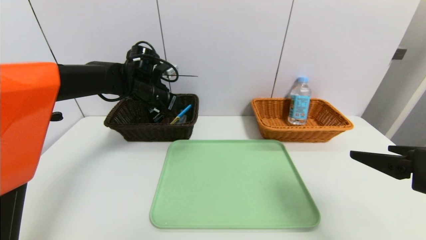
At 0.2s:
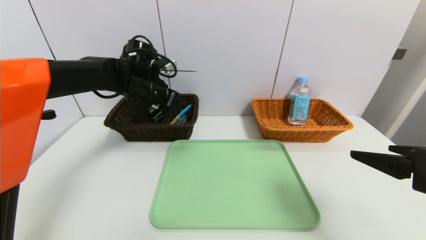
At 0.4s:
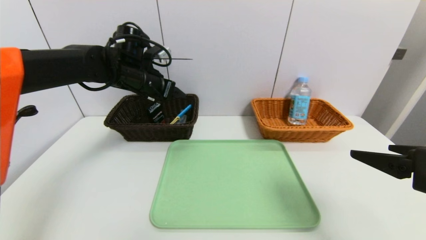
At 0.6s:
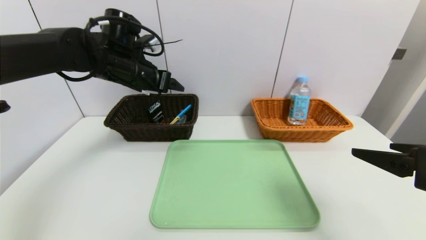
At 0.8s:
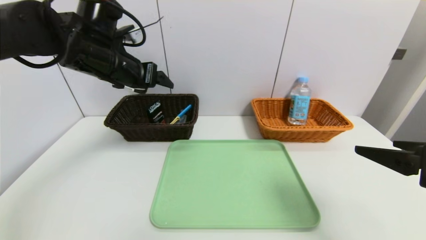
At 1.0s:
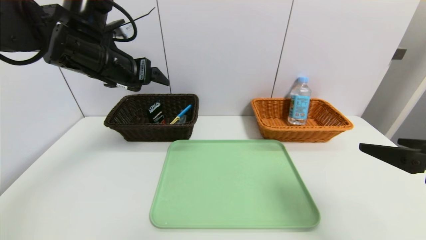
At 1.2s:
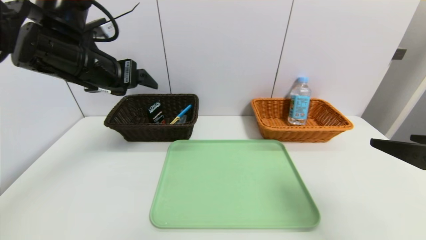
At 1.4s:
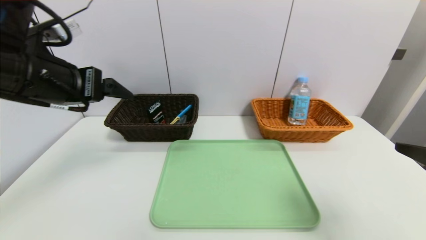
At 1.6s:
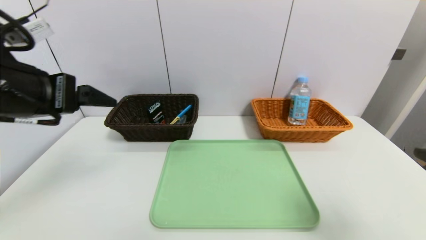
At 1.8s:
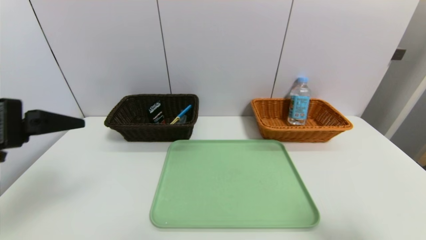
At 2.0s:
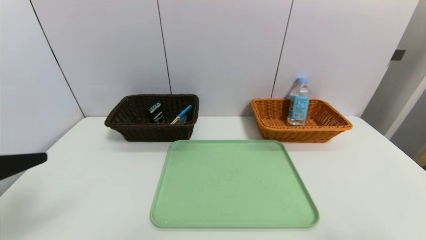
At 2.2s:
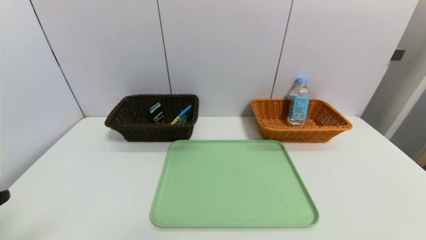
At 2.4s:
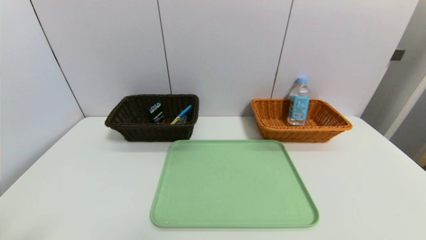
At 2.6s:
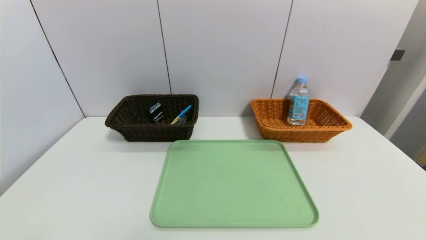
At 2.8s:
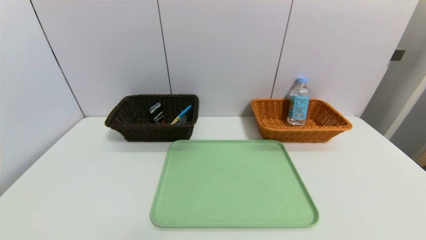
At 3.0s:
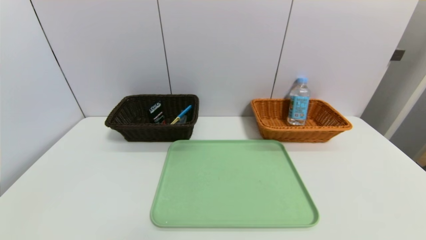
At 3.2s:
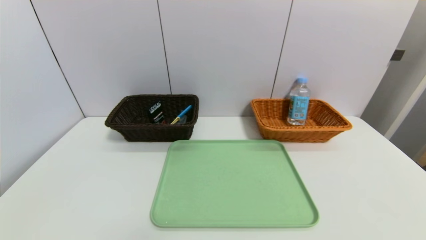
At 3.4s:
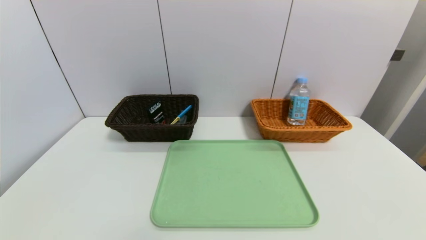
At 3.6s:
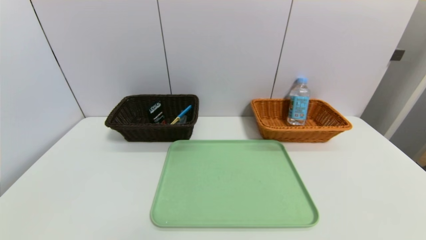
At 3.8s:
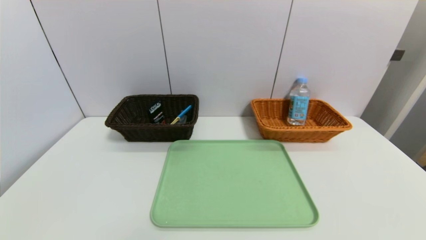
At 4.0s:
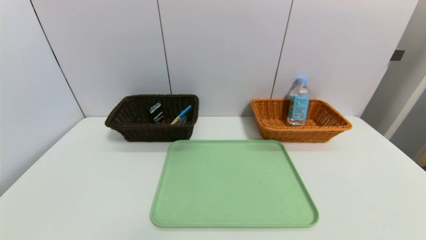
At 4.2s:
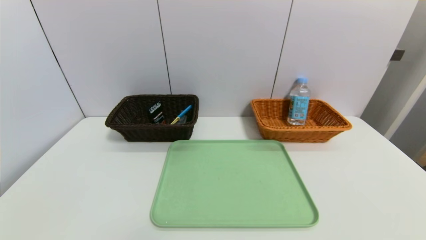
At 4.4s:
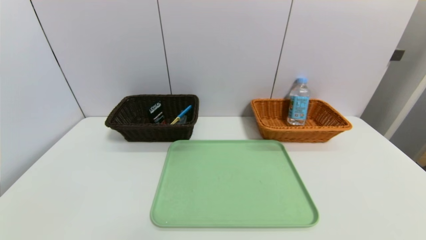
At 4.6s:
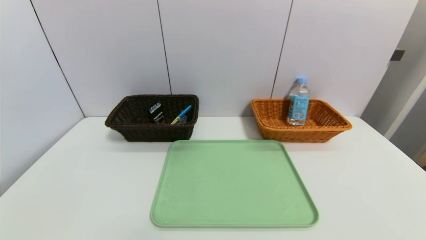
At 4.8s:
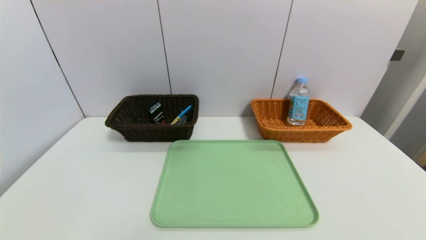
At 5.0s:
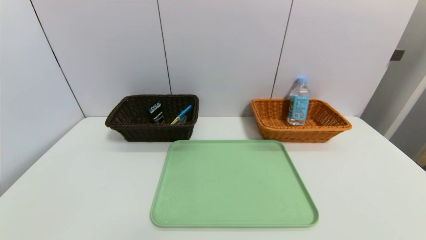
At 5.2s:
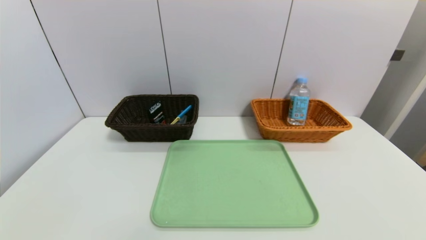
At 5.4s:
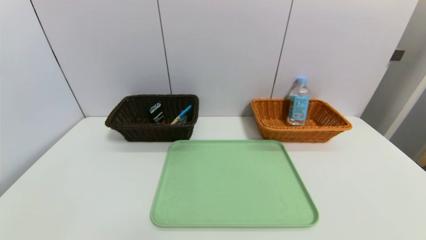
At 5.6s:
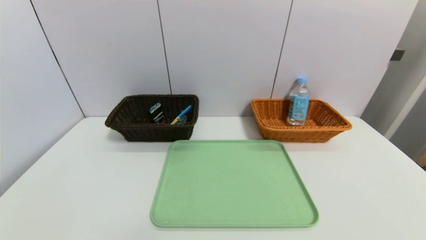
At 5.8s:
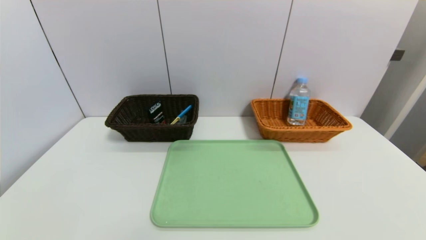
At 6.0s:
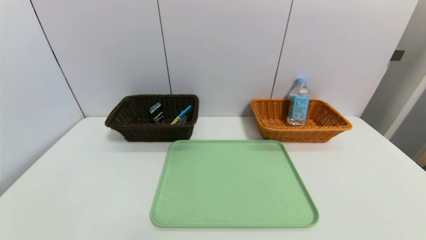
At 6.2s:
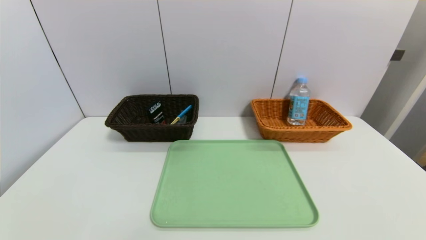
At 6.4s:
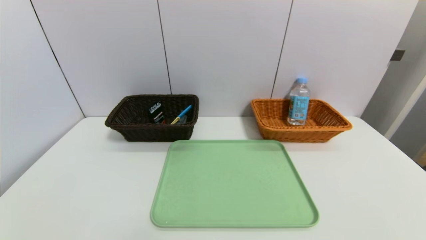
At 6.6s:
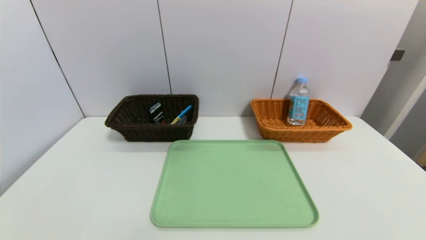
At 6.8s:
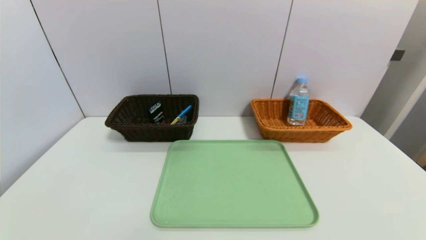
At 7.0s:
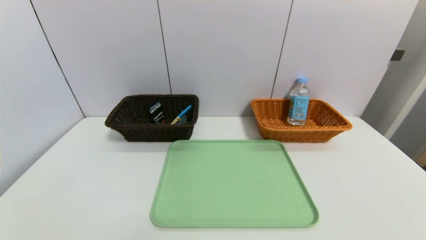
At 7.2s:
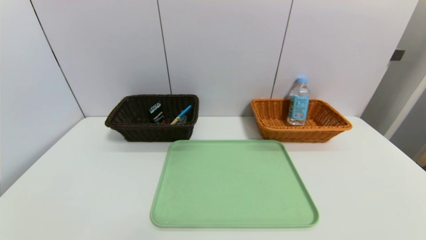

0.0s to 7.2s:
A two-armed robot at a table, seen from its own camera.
Task of the whole recording: place the food in the right basket with the right gripper, and place the non food items in the left basket with the left gripper.
0.0s to 1.4s: The left gripper is displaced backward and upward by about 20 cm, and opens its fingers.
1.4s to 2.8s: The right gripper goes approximately 15 cm backward, while the left gripper travels backward and downward by approximately 30 cm.
